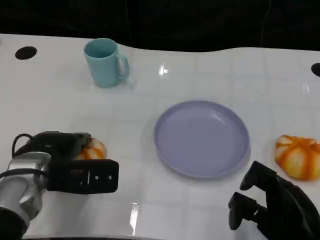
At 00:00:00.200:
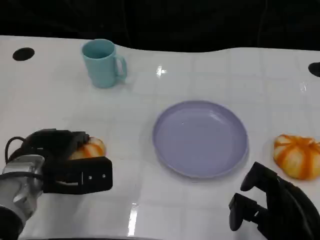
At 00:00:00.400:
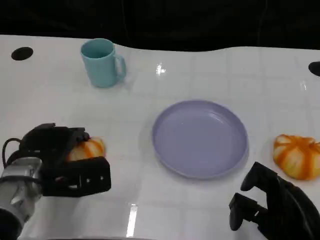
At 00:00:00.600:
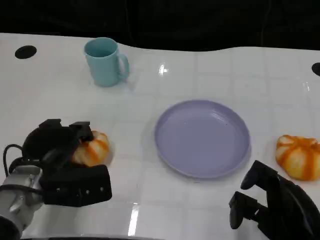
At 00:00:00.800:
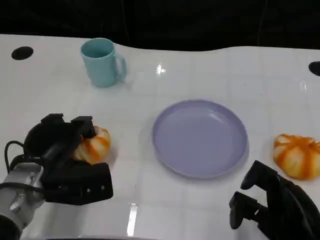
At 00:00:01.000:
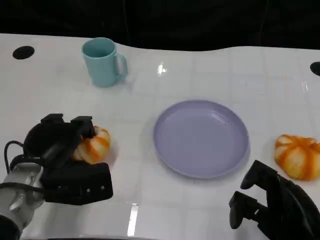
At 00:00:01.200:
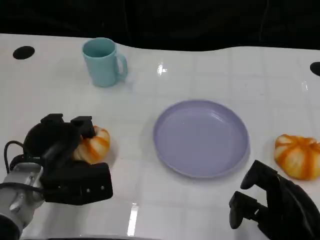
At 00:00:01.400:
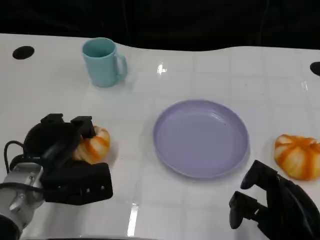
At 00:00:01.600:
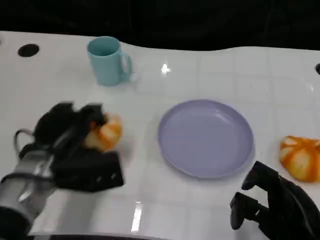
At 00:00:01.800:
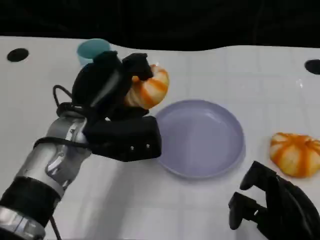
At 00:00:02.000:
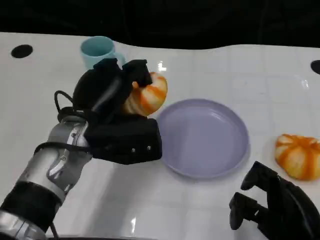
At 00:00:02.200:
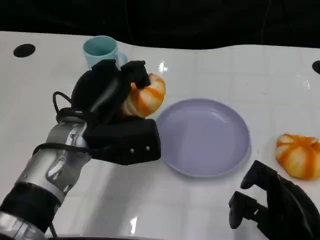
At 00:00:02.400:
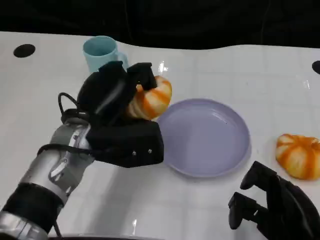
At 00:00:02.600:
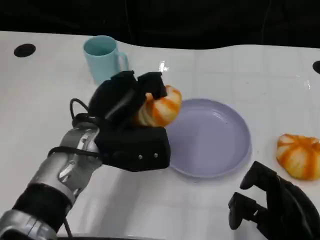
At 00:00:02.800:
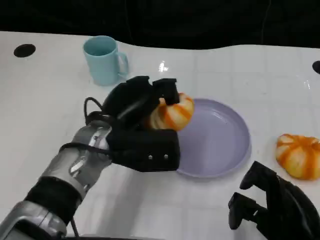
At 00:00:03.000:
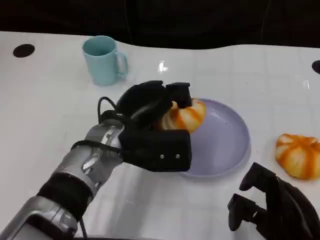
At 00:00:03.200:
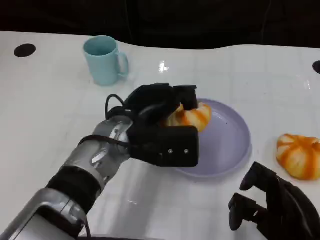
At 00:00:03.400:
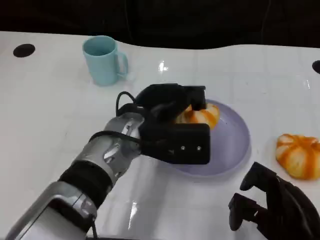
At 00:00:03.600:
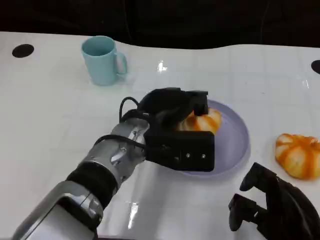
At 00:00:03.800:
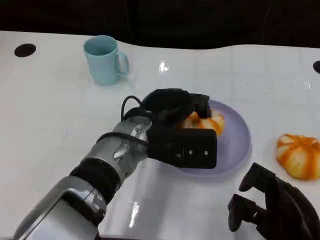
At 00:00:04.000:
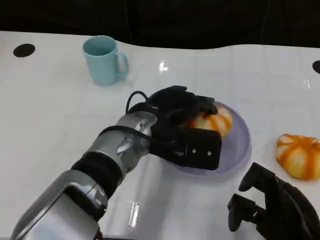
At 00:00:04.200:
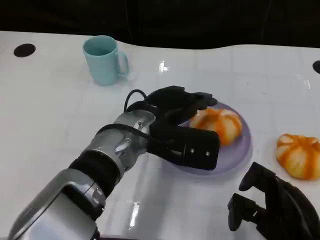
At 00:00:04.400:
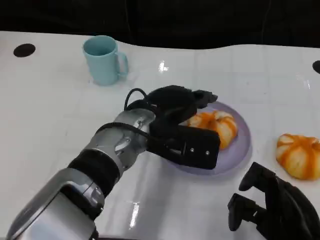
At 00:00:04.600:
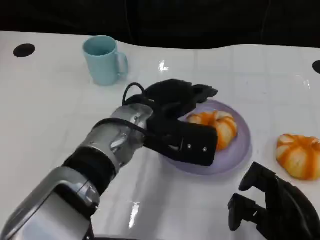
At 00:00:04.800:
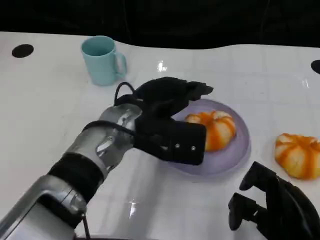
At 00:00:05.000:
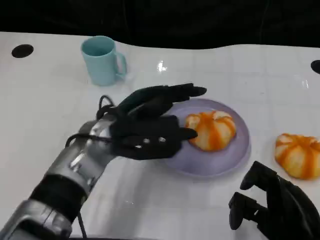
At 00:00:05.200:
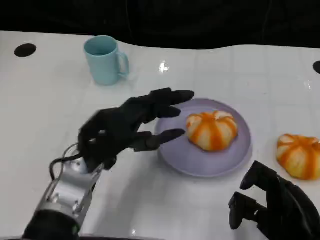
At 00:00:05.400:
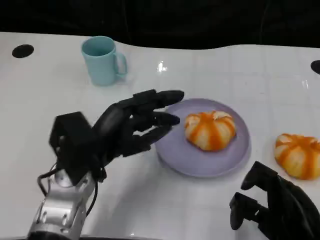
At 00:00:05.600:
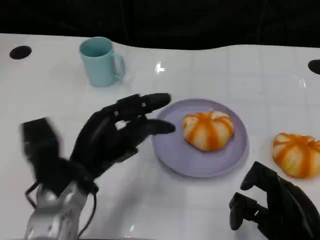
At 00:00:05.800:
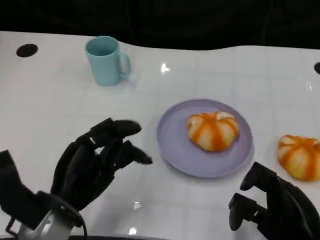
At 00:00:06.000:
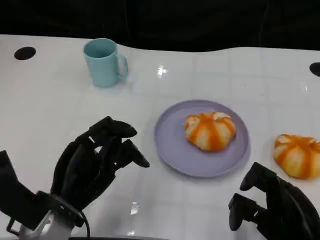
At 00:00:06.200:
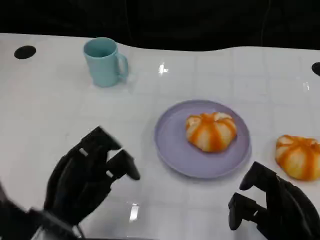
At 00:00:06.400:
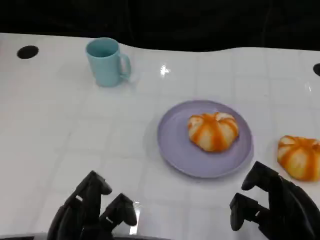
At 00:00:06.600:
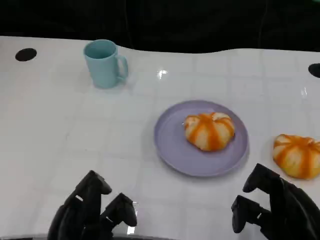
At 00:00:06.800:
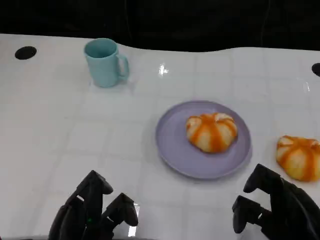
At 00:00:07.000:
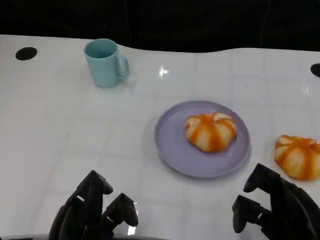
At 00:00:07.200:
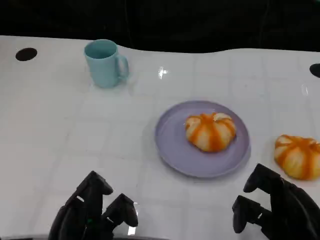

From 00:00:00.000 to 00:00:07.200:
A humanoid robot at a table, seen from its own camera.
Task of the whole recording: Grasp the bread from the table and place it into the plate.
From 00:00:01.400 to 00:00:02.800: The left hand shifts some 15 cm to the right and upward.
From 00:00:02.800 to 00:00:04.400: The left hand changes place by about 5 cm.
From 00:00:04.400 to 00:00:05.800: The left hand goes some 20 cm to the left, backward and downward.
From 00:00:05.800 to 00:00:07.200: The left hand goes about 5 cm backward.

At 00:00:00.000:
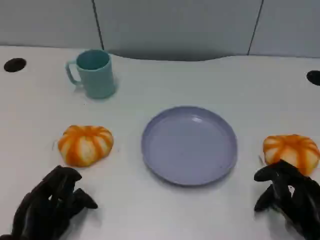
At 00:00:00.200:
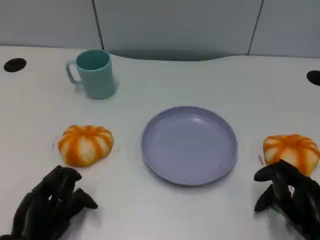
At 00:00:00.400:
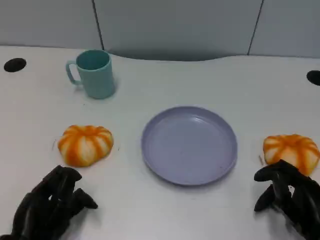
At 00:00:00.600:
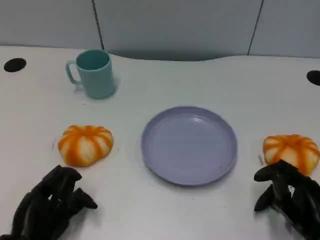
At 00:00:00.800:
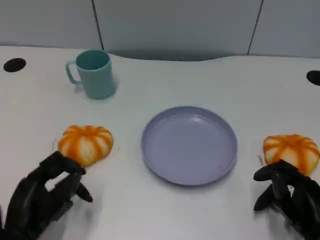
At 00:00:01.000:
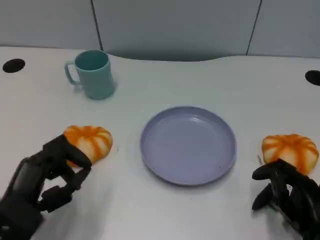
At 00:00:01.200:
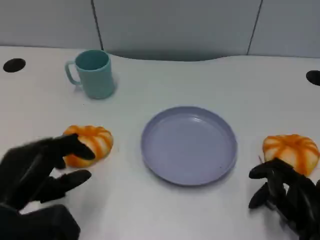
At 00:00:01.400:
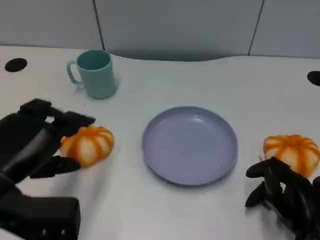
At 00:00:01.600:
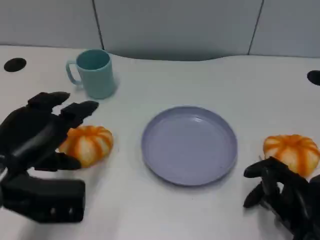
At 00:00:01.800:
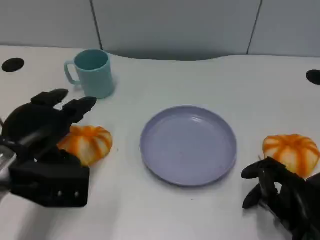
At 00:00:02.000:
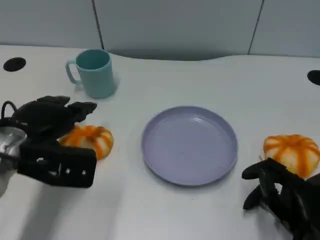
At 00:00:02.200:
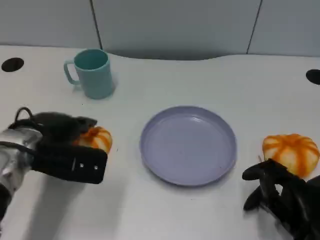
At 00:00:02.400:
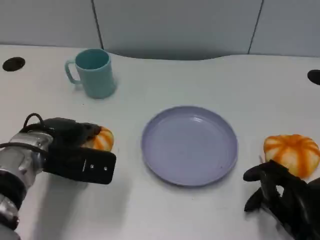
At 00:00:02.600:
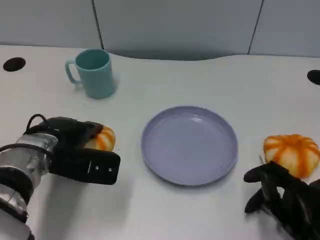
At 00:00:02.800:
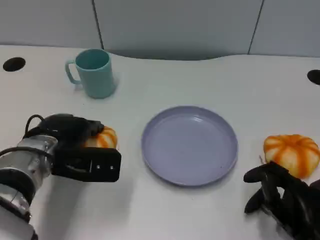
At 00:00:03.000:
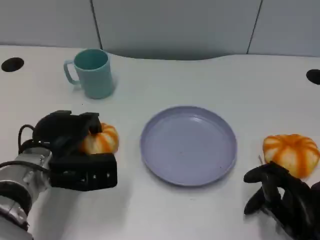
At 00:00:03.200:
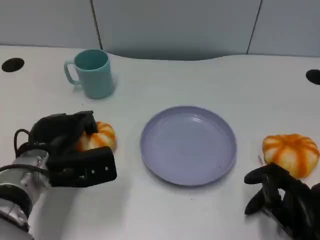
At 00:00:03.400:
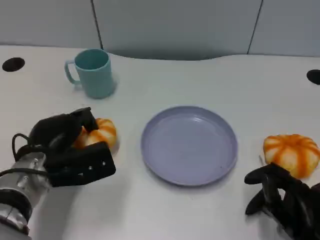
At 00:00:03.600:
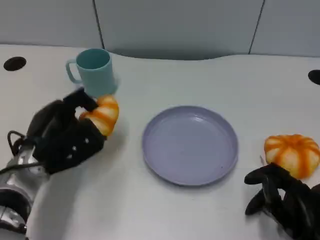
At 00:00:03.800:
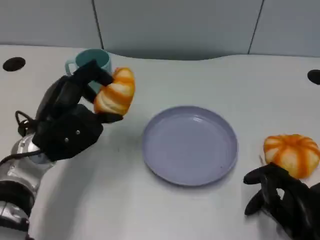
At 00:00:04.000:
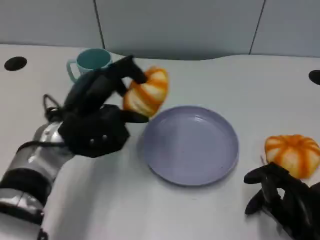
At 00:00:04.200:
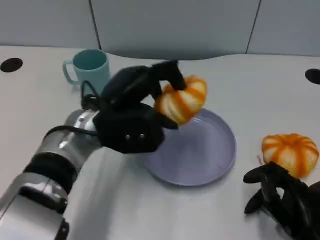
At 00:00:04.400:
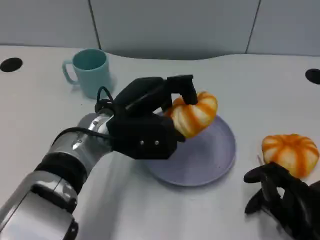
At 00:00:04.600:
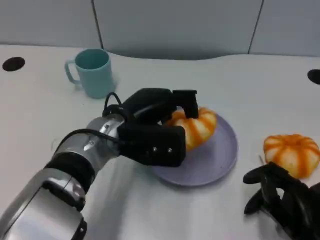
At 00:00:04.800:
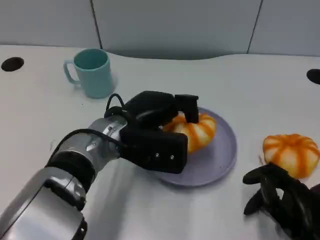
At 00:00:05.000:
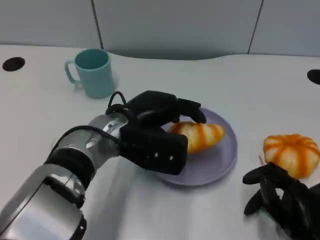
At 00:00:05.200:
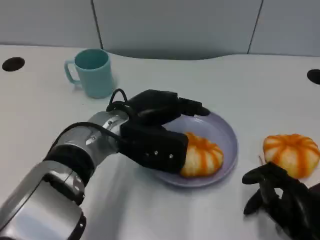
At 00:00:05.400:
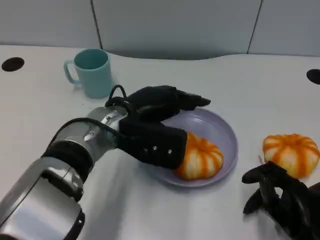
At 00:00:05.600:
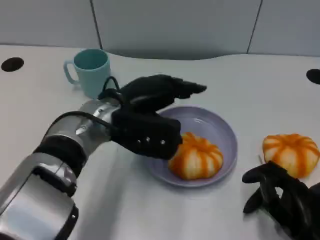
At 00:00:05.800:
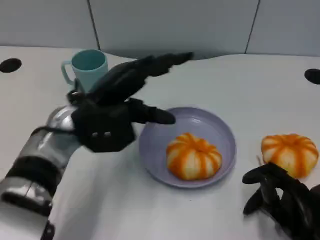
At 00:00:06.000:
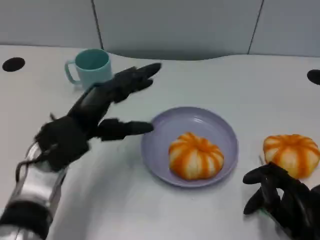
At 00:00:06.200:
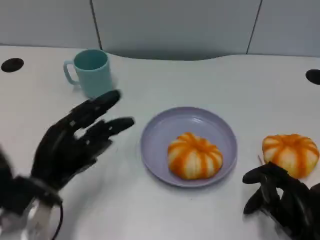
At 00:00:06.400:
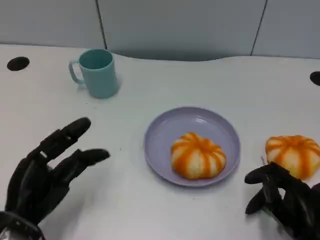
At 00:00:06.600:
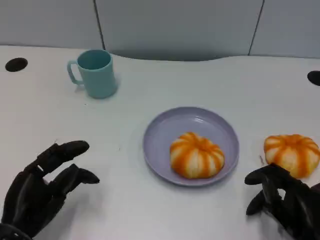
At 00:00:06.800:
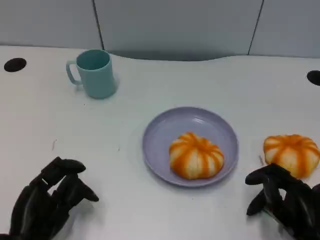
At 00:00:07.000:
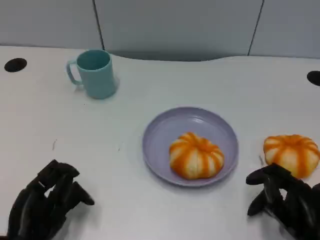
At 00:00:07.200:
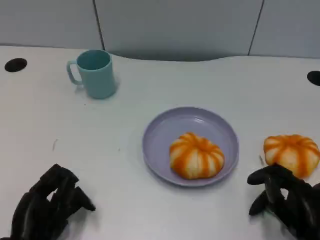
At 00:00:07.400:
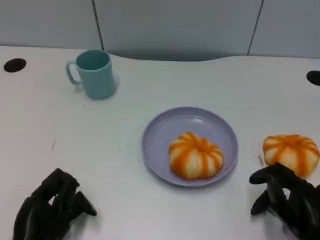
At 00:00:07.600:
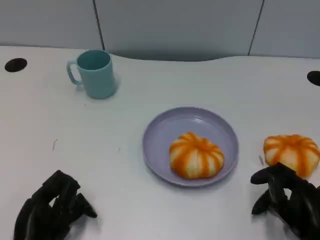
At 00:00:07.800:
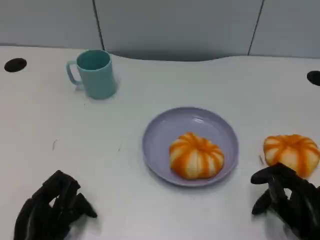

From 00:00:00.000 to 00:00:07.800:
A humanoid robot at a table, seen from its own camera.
Task of the whole recording: Grasp the bread from the table and place it into the plate.
From 00:00:00.000 to 00:00:01.600: The left hand is displaced upward and forward by about 15 cm.
From 00:00:01.600 to 00:00:03.200: The left hand shifts about 5 cm downward.
From 00:00:03.200 to 00:00:04.600: The left hand shifts some 15 cm to the right and upward.
From 00:00:04.600 to 00:00:06.200: The left hand is displaced to the left, backward and downward by roughly 15 cm.
From 00:00:06.200 to 00:00:07.800: The left hand heads backward, covering about 5 cm.

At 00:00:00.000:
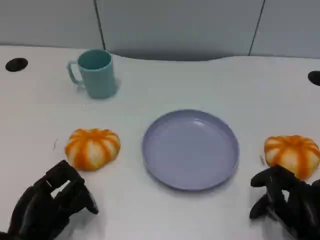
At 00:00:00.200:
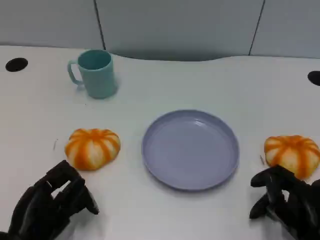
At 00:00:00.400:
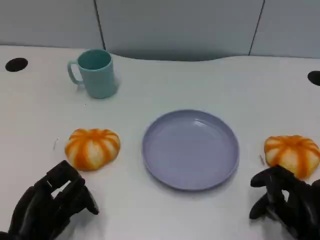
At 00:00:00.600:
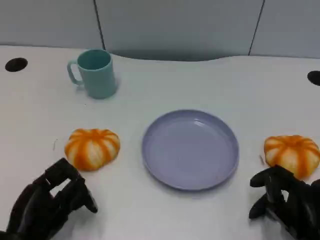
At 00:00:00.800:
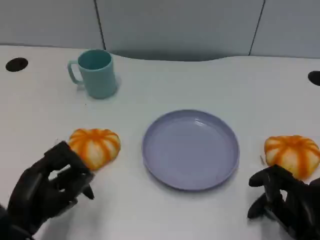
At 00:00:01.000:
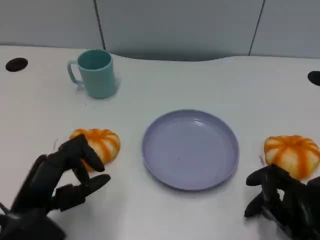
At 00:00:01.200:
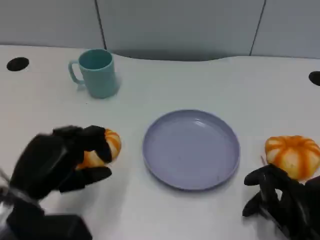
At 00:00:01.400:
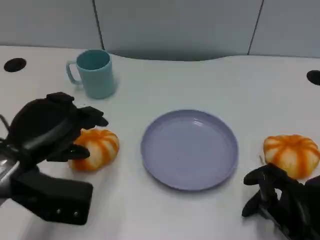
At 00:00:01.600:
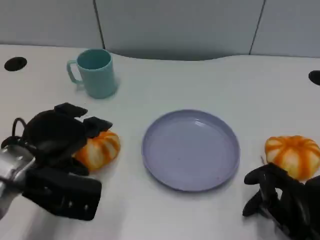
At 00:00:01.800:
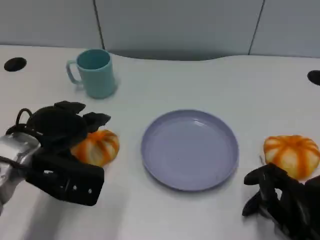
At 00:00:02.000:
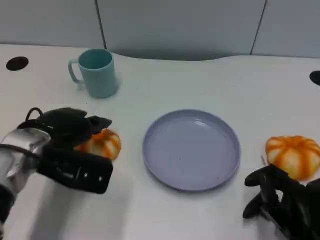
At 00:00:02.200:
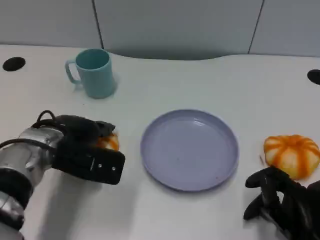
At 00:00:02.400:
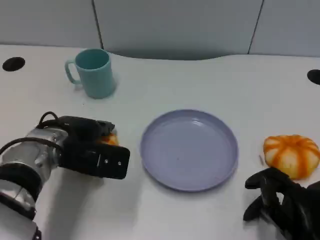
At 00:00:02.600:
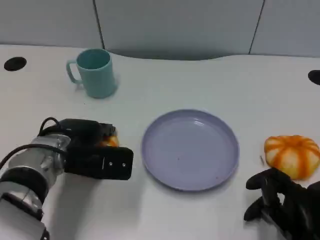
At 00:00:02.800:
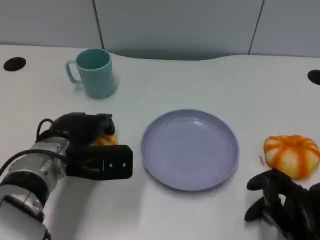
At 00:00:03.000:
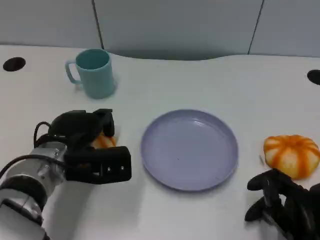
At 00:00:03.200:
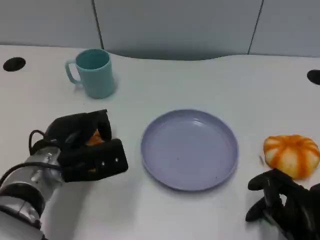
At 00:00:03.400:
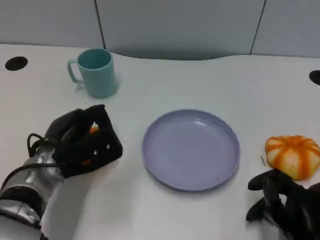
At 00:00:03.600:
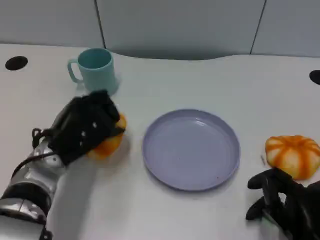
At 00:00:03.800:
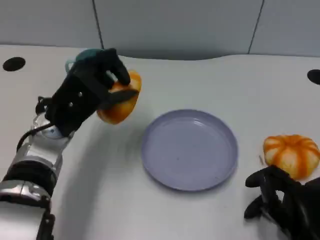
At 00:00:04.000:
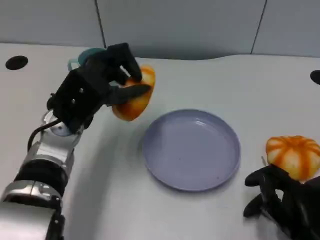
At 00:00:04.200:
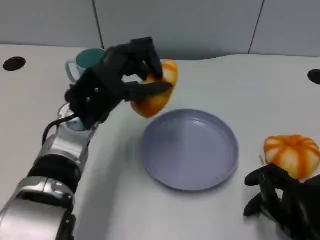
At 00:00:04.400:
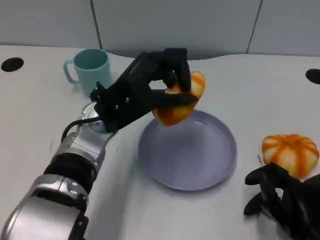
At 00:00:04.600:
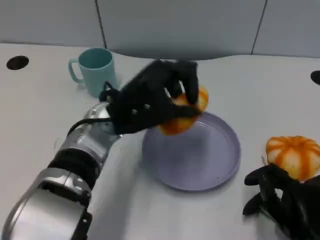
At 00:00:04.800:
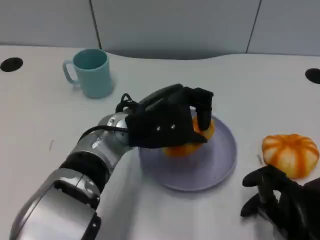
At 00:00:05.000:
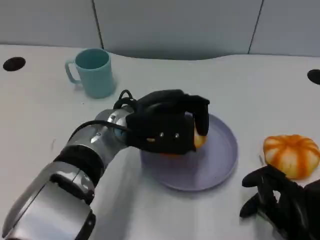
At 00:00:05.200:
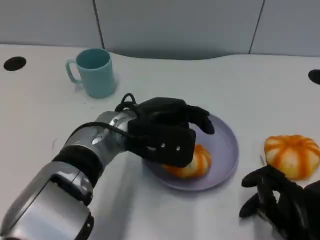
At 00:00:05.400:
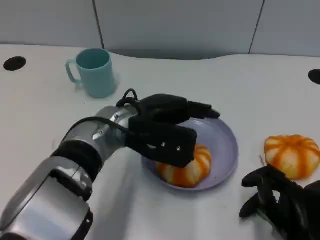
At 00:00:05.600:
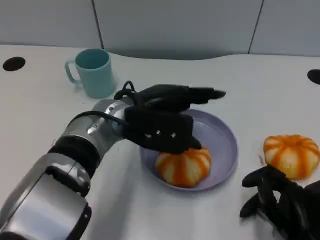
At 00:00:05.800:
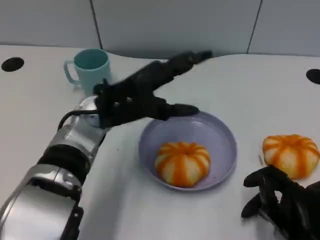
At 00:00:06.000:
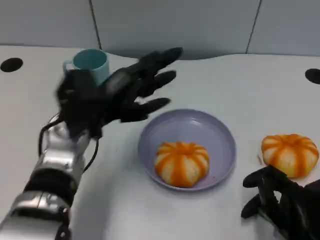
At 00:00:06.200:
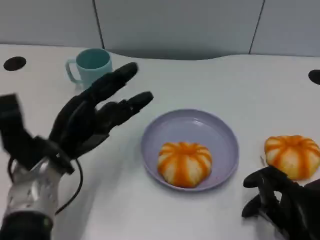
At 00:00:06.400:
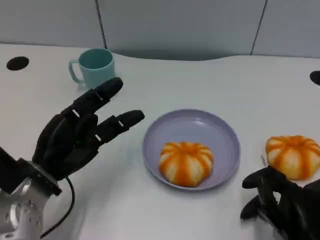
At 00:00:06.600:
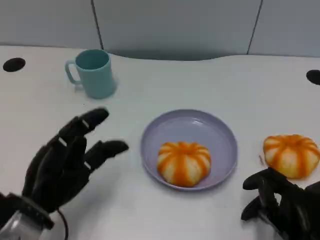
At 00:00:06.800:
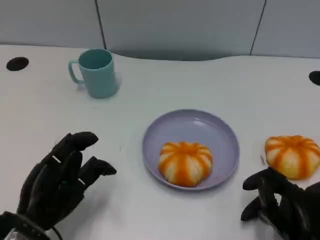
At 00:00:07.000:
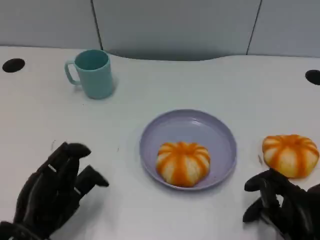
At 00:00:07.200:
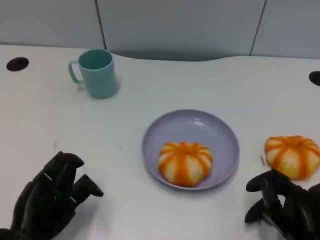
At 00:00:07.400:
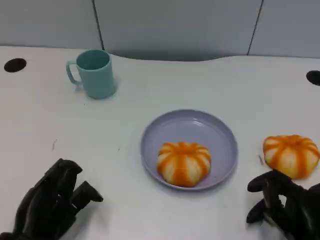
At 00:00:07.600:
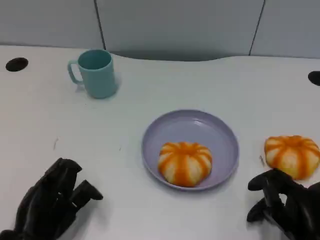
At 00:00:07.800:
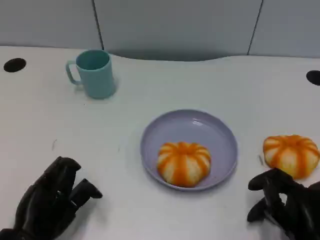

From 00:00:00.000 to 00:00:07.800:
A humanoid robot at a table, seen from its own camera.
Task of the whole recording: Grasp the bread from the table and place it into the plate.
From 00:00:00.000 to 00:00:01.600: The left hand goes about 15 cm forward and upward.
From 00:00:01.600 to 00:00:03.200: The left hand heads downward, covering some 5 cm.
From 00:00:03.200 to 00:00:04.600: The left hand heads to the right and upward, covering approximately 15 cm.
From 00:00:04.600 to 00:00:06.200: The left hand travels to the left and downward by some 15 cm.
From 00:00:06.200 to 00:00:07.800: The left hand travels backward and downward by roughly 10 cm.
